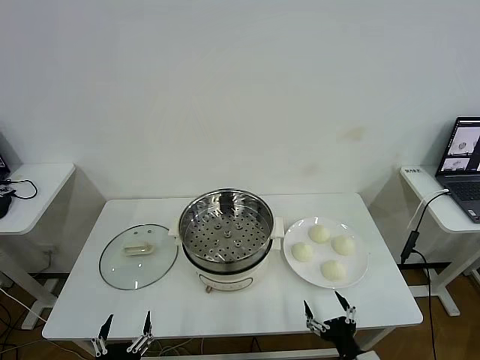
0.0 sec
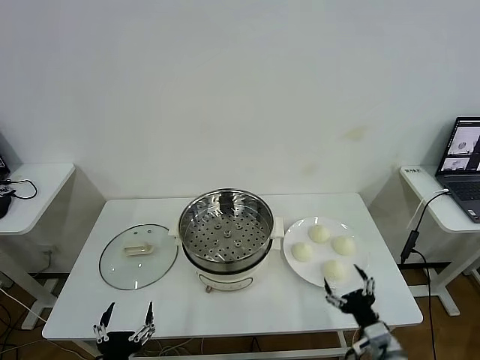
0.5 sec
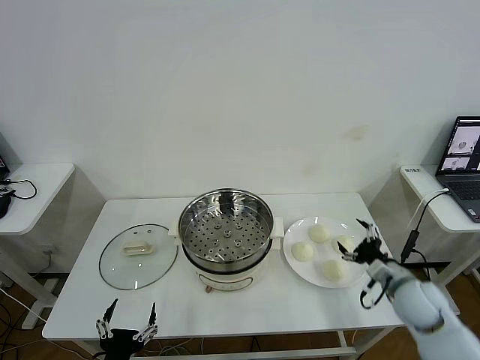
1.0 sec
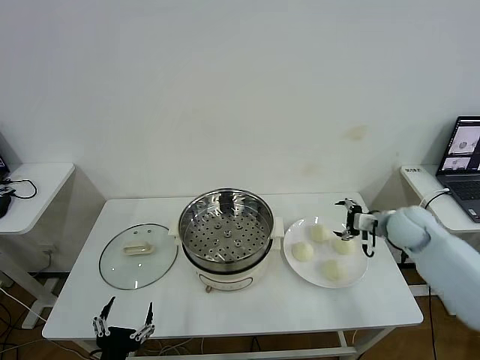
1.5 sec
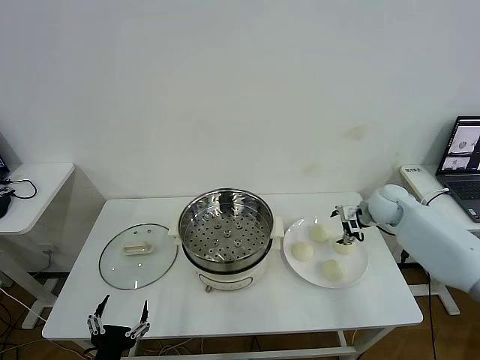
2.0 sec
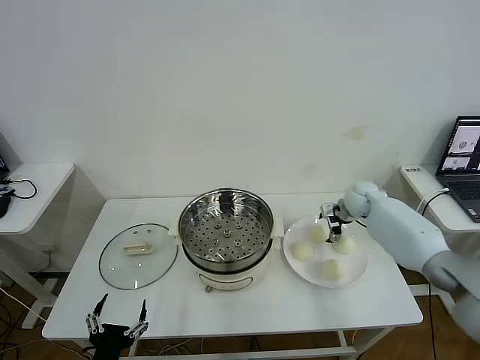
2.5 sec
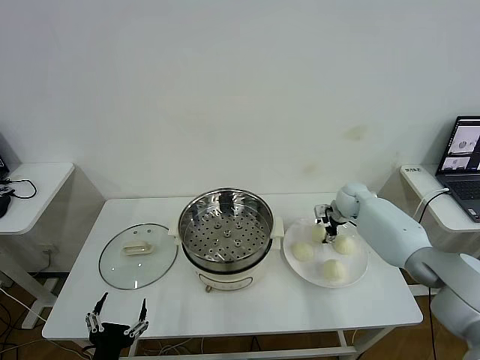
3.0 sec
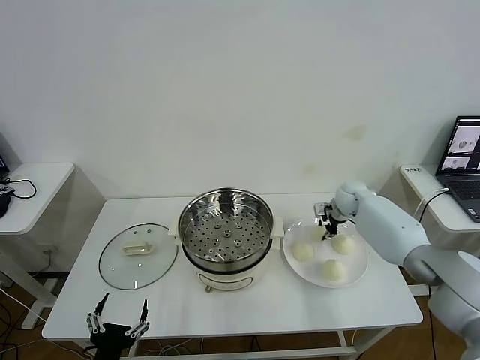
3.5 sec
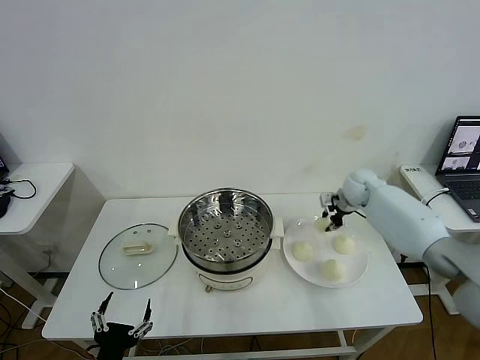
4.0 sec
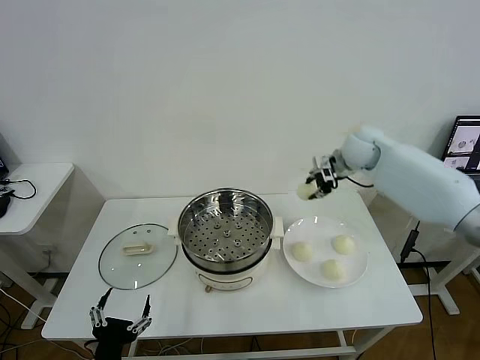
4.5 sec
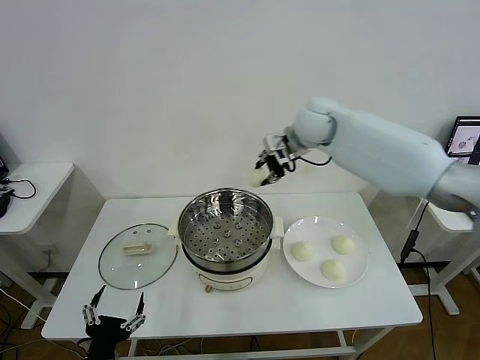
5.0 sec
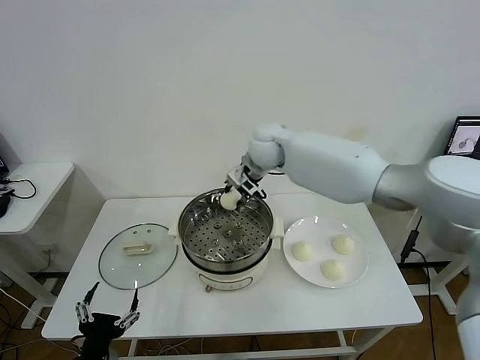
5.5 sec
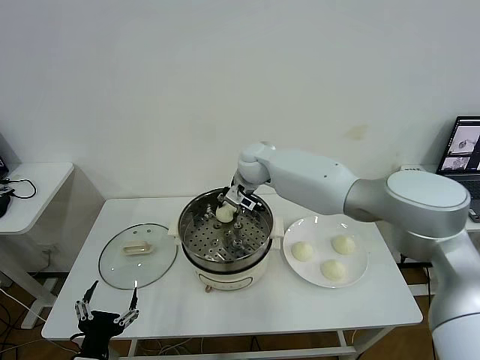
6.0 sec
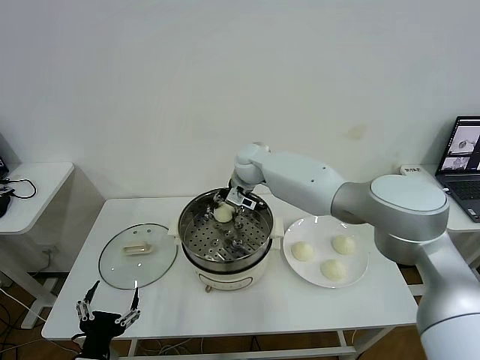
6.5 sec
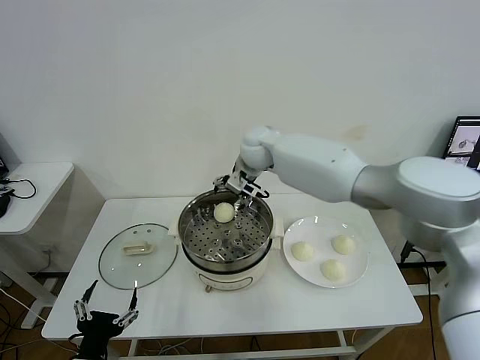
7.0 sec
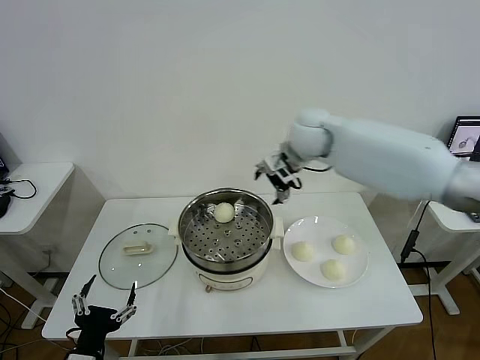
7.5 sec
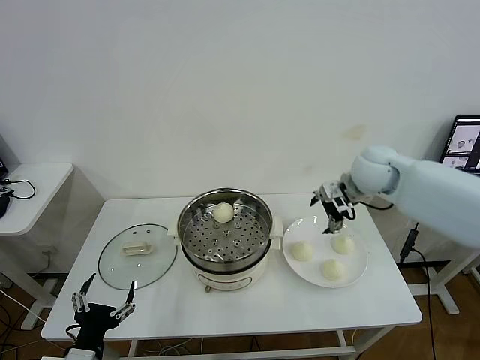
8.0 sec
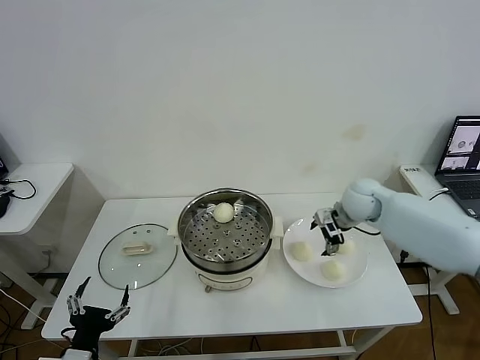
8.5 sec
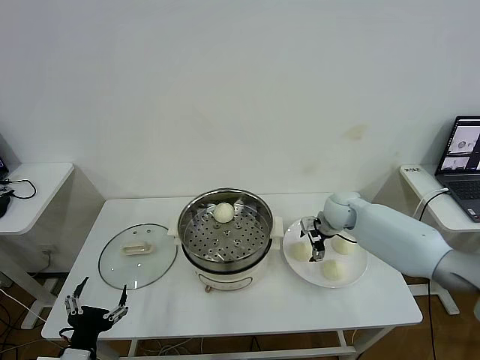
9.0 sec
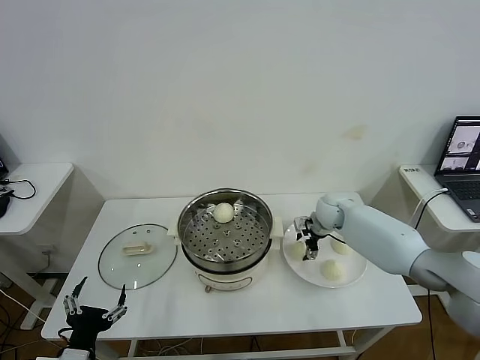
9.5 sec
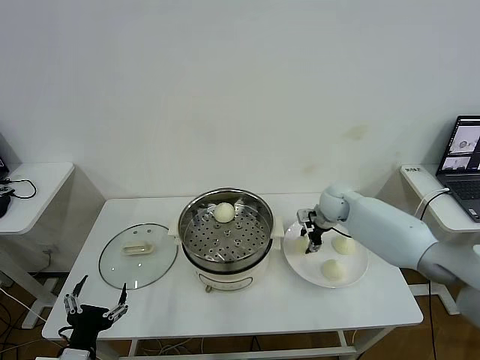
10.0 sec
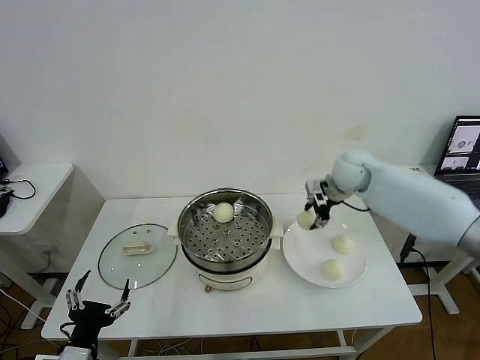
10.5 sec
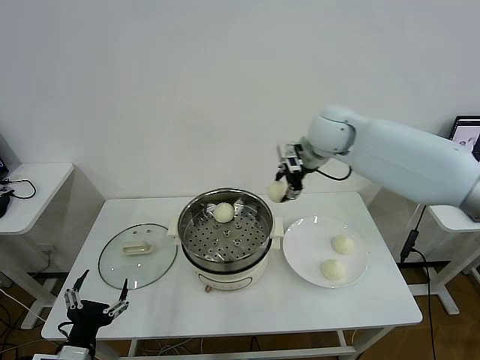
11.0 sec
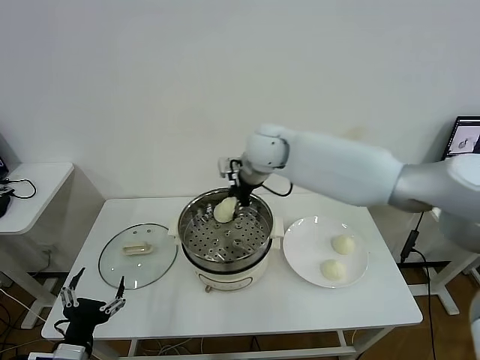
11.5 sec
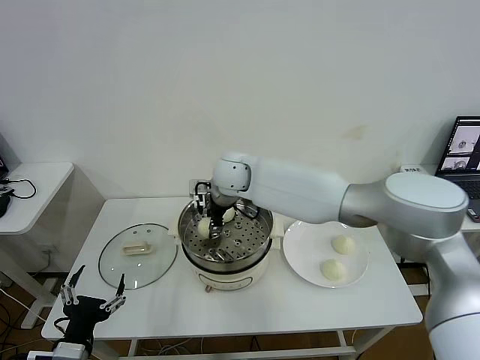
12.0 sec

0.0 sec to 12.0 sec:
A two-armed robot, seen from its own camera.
Task of the whole recording: take steamed baozi put them in steamer then cover it.
Step, 0.0 sec to 3.5 sec: Grasp the baozi in the plate with right gripper.
Step, 4.0 sec to 6.5 sec: Place the baozi on the steamer with right gripper.
Step, 7.0 sec to 9.5 sec: Grasp the baozi in the plate with right gripper.
2.0 sec to 4.0 sec: The right gripper ends up approximately 5 cm from where it was, and closes.
4.0 sec to 6.0 sec: The right gripper shifts roughly 30 cm to the left.
6.0 sec to 8.0 sec: The right gripper moves to the right, roughly 25 cm, and opens.
8.0 sec to 10.0 sec: The right gripper shifts about 10 cm downward and forward, and closes.
10.0 sec to 12.0 sec: The right gripper heads to the left, covering some 30 cm.

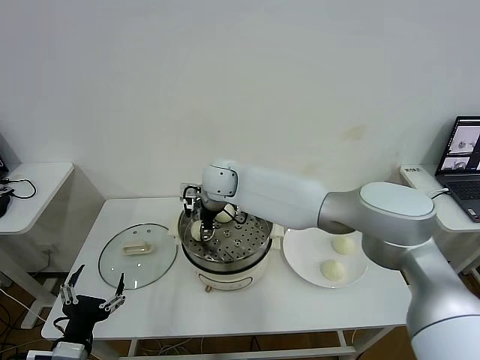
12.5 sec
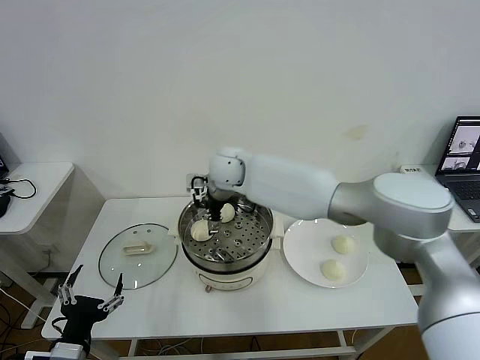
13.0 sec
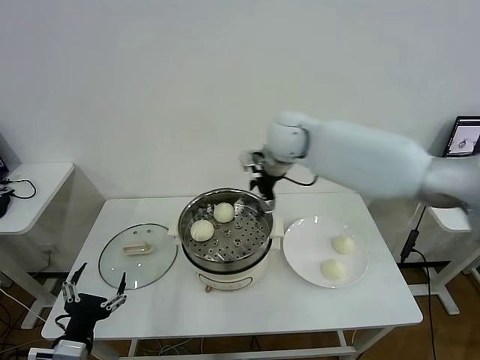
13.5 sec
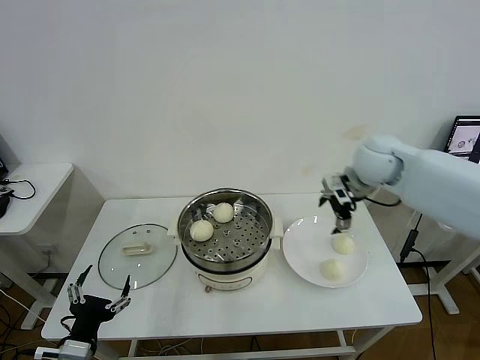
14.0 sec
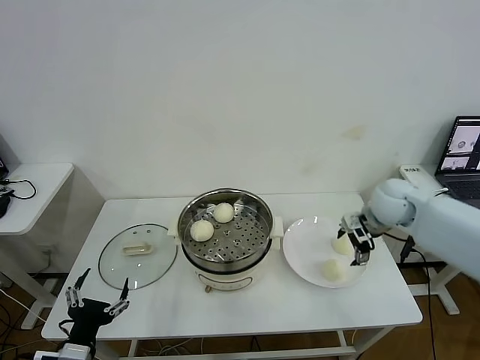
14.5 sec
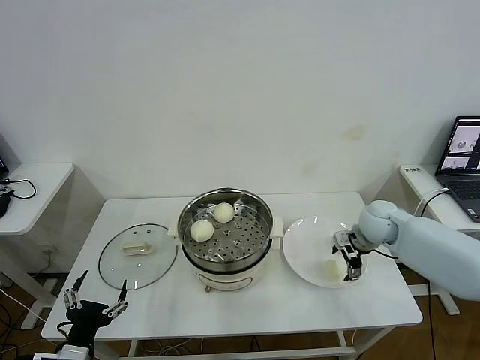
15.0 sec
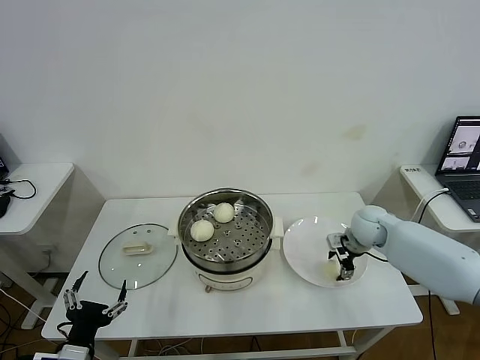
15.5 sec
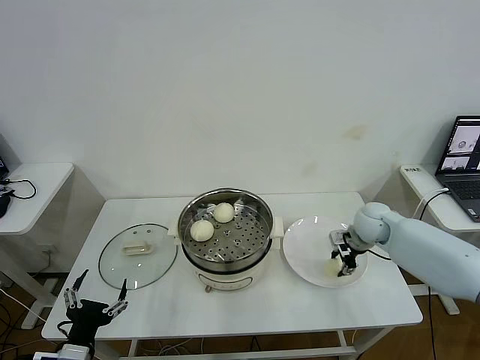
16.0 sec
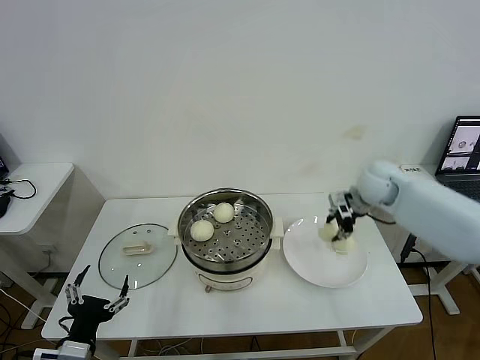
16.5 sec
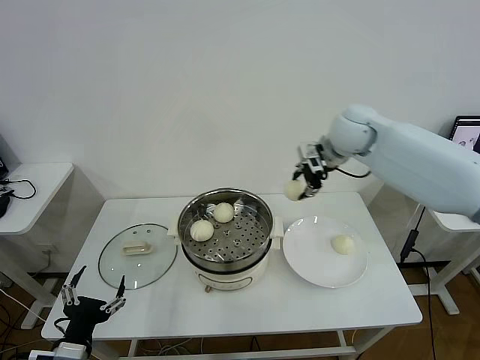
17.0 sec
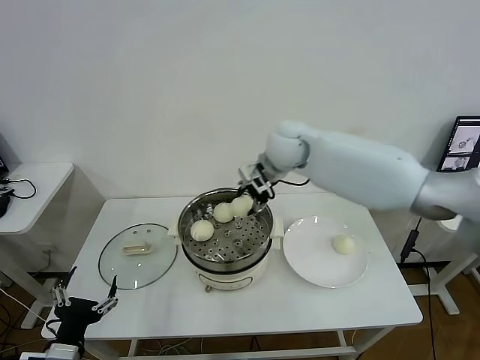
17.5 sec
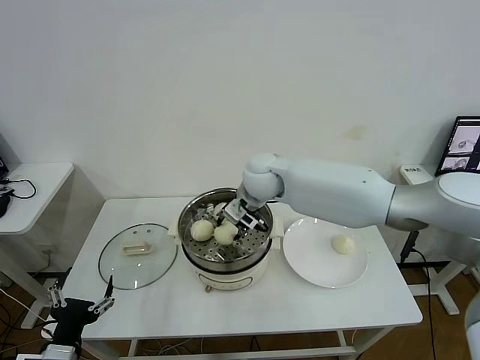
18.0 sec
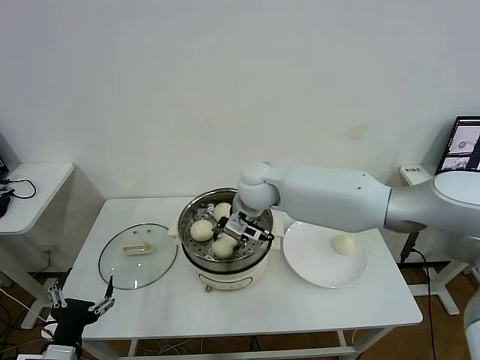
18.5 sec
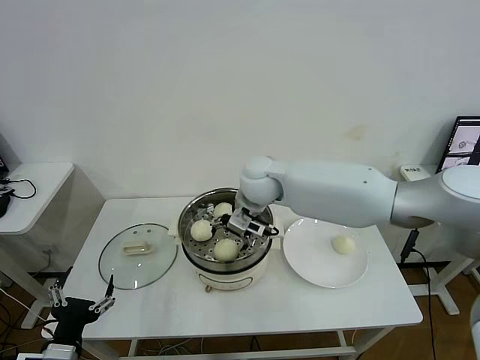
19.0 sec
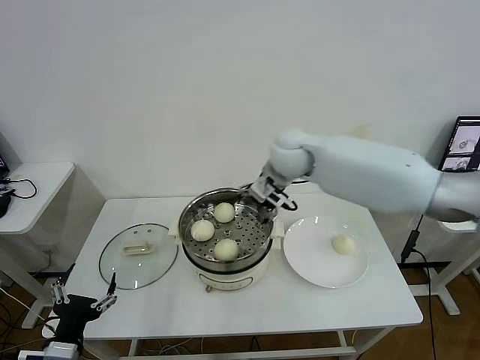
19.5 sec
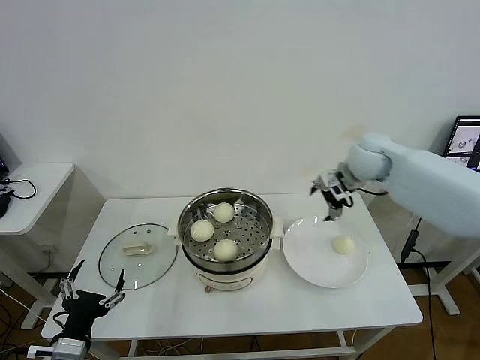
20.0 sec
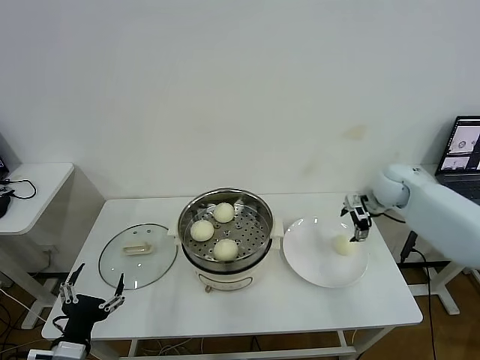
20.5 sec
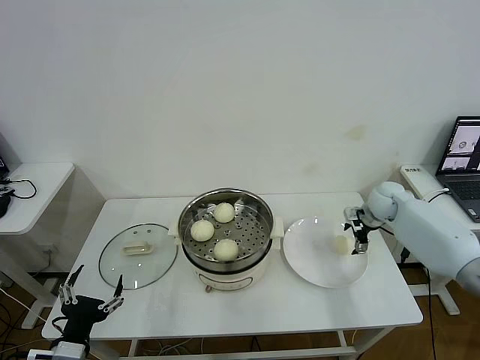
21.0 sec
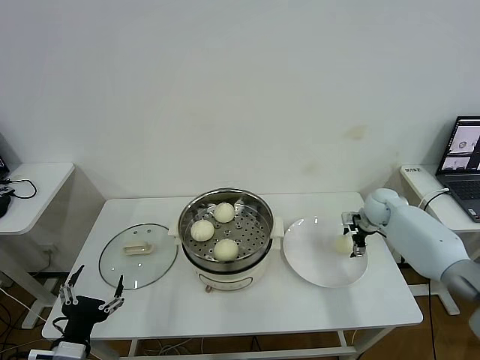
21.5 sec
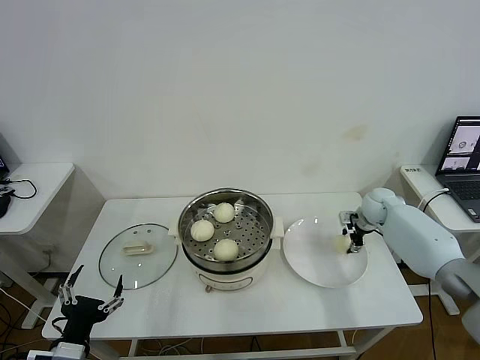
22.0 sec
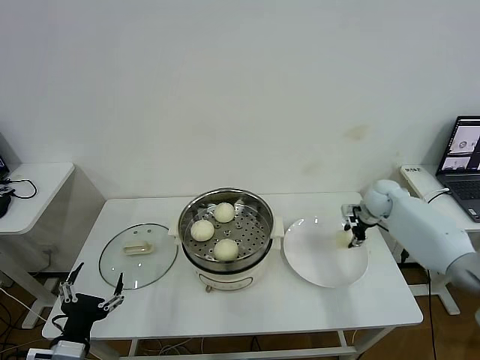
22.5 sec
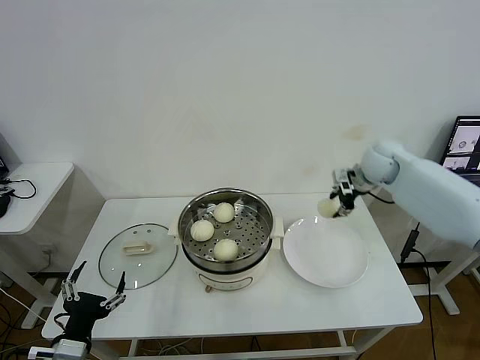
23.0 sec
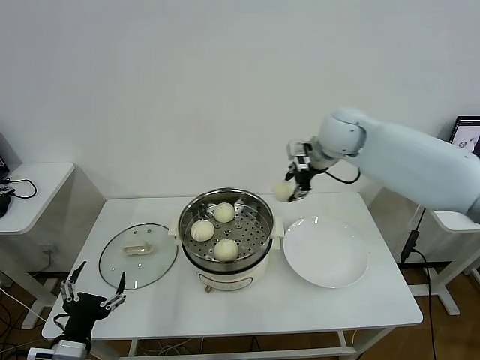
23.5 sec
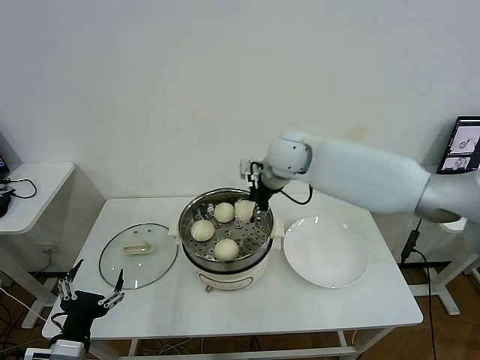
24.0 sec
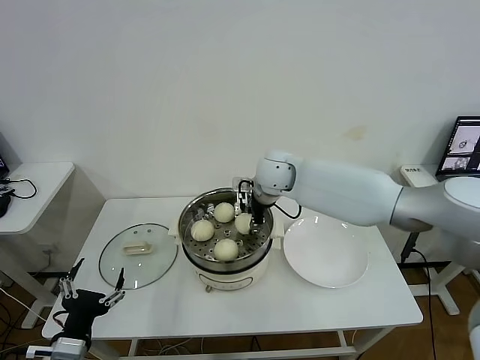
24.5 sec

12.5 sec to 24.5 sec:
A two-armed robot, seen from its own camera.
Task of the whole recording: take steamed baozi put them in steamer then cover it.
Step, 13.0 sec to 15.5 sec: Grasp the baozi in the plate with right gripper.
Step, 16.5 sec to 19.0 sec: Place the baozi on the steamer with right gripper.
Step, 19.5 sec to 22.0 sec: Grasp the baozi in the plate with right gripper.
12.5 sec to 14.5 sec: The right gripper heads to the right, covering about 40 cm, and opens up.
14.5 sec to 16.5 sec: The right gripper is displaced upward and forward by about 10 cm, and closes up.
16.5 sec to 18.5 sec: The right gripper goes roughly 25 cm to the left.
18.5 sec to 20.5 sec: The right gripper goes some 35 cm to the right, and opens up.
20.5 sec to 22.5 sec: The right gripper is displaced downward by about 5 cm, and closes its fingers.
22.5 sec to 24.5 sec: The right gripper shifts about 30 cm to the left.

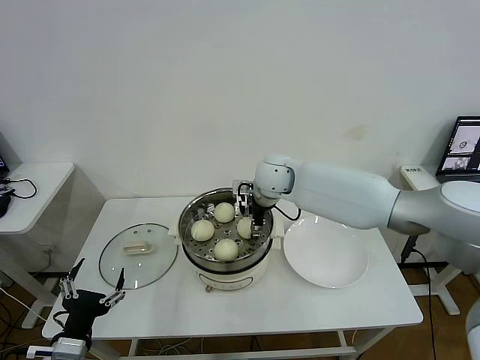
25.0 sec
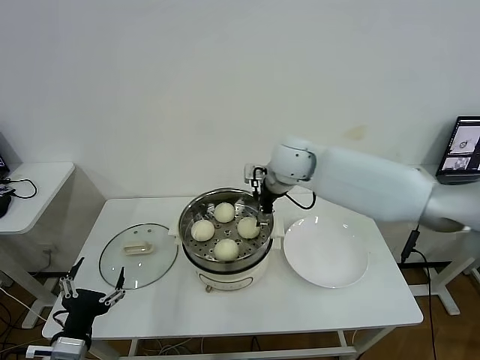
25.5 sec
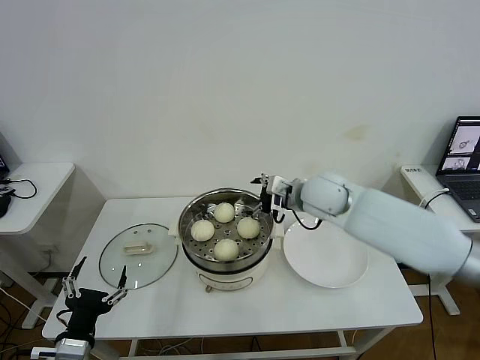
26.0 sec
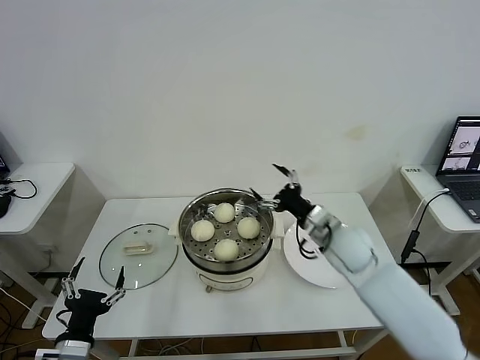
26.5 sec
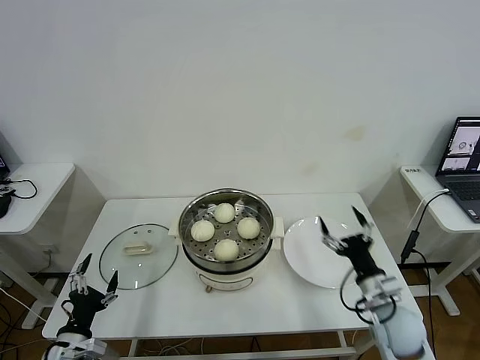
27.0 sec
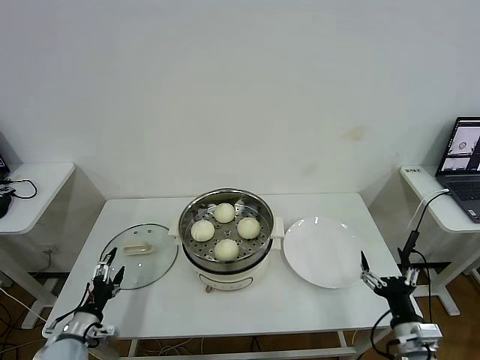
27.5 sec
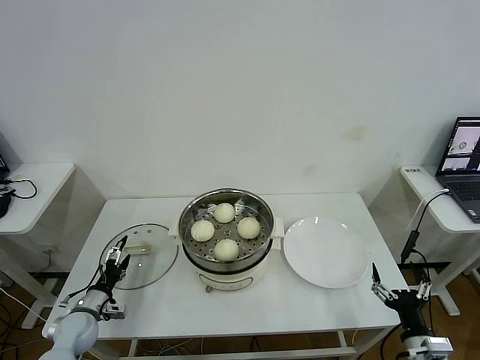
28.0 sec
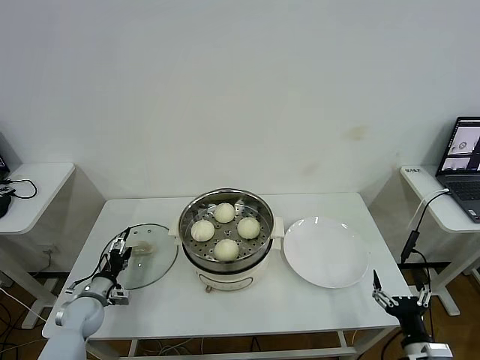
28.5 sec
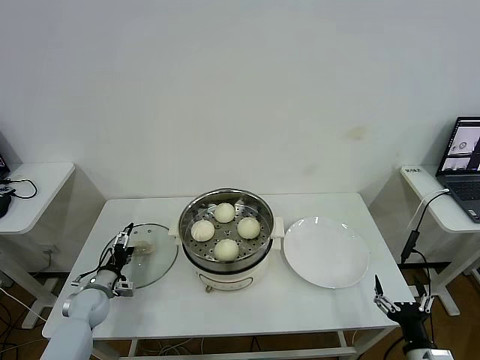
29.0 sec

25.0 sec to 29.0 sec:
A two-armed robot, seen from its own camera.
Task of the whole recording: take steamed baozi put them in steamer then cover it.
25.0 sec to 27.0 sec: The left gripper travels downward by roughly 5 cm. The right gripper moves backward, to the right and downward, approximately 40 cm.
27.0 sec to 29.0 sec: The left gripper heads forward and downward, covering roughly 25 cm; the right gripper shifts approximately 15 cm backward, to the right and downward.